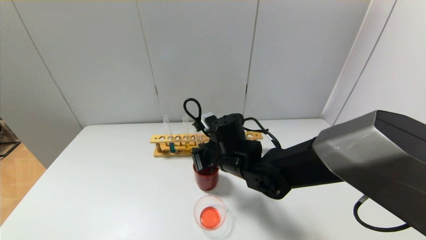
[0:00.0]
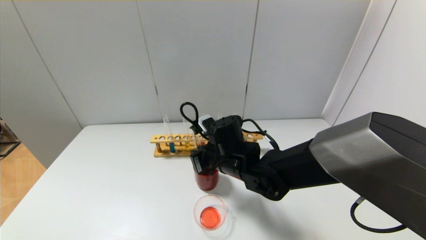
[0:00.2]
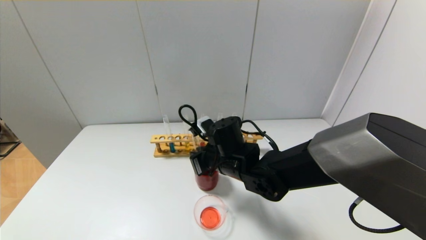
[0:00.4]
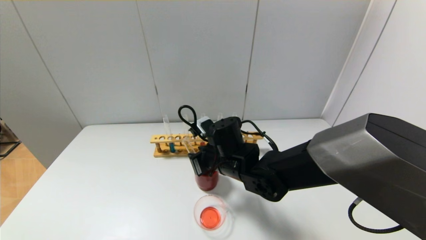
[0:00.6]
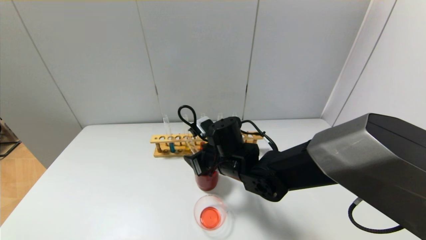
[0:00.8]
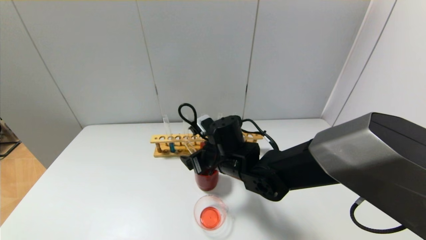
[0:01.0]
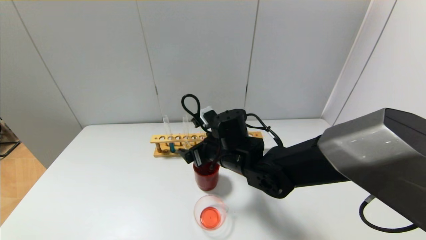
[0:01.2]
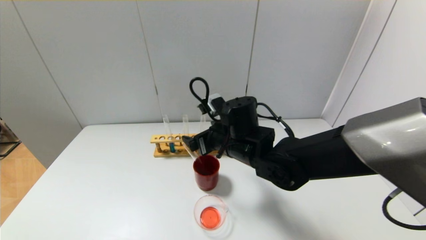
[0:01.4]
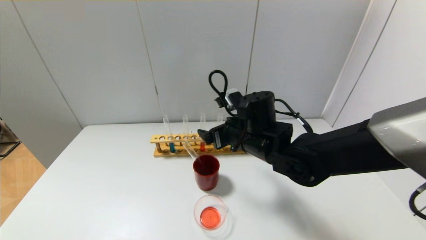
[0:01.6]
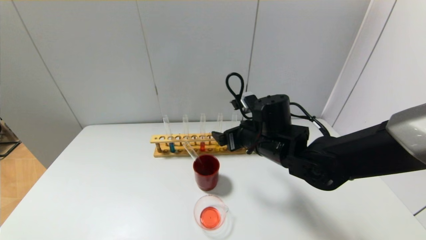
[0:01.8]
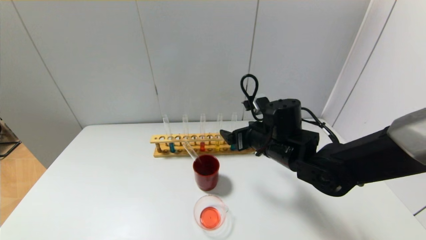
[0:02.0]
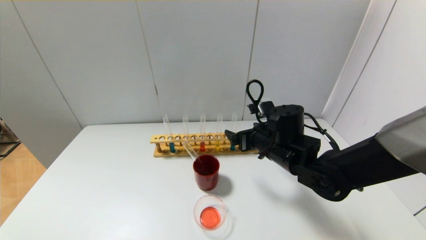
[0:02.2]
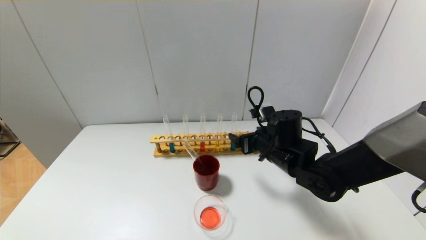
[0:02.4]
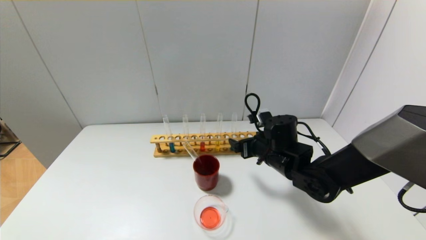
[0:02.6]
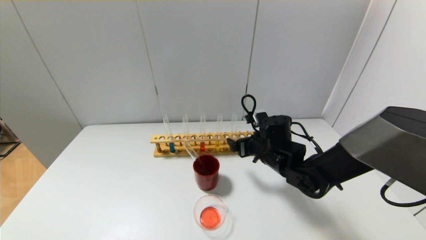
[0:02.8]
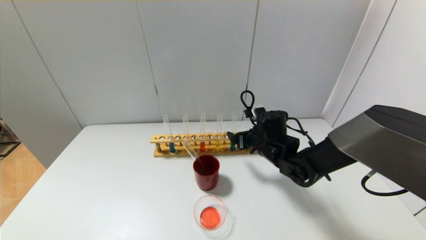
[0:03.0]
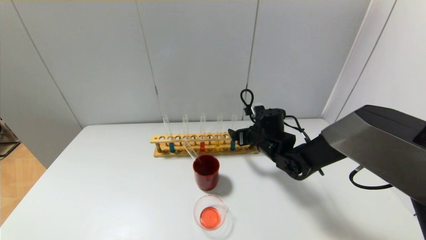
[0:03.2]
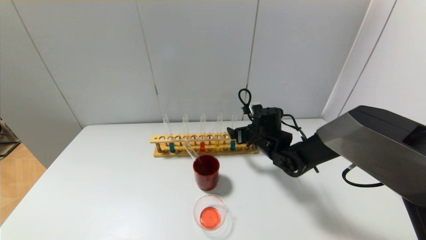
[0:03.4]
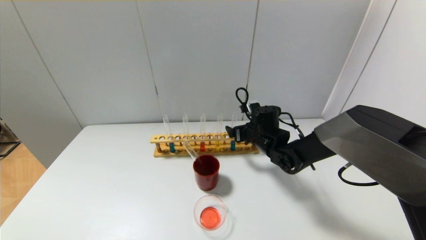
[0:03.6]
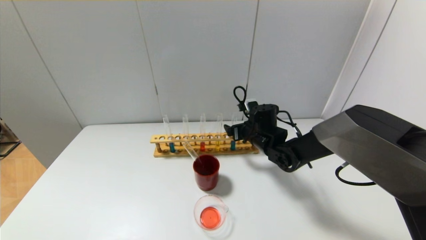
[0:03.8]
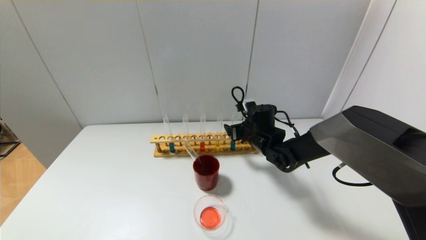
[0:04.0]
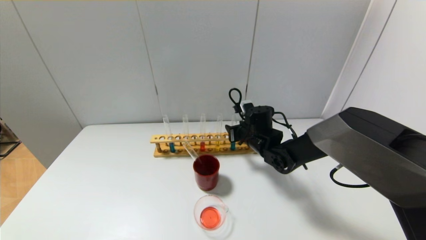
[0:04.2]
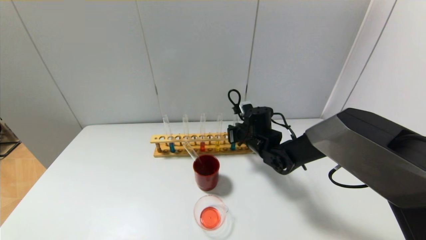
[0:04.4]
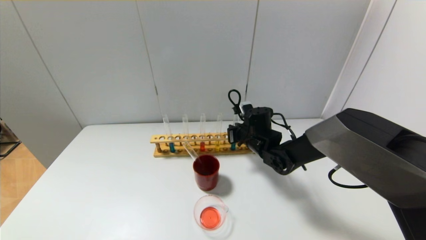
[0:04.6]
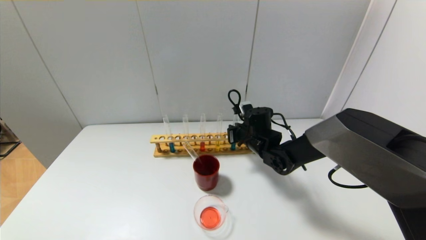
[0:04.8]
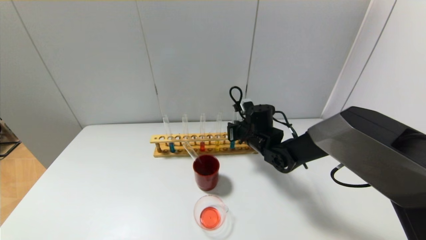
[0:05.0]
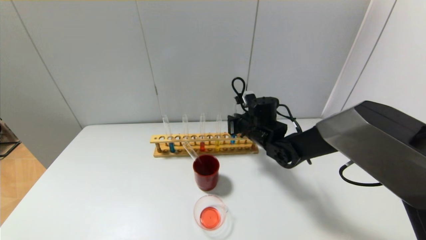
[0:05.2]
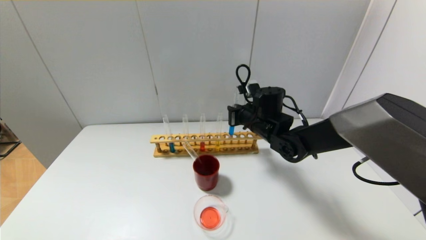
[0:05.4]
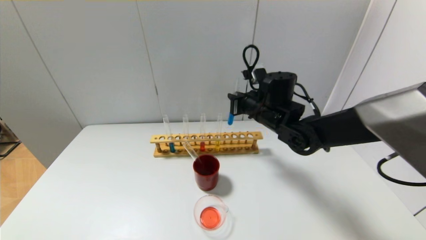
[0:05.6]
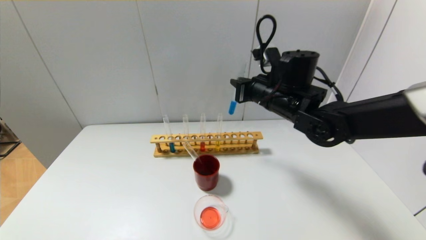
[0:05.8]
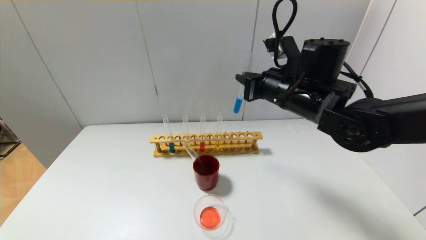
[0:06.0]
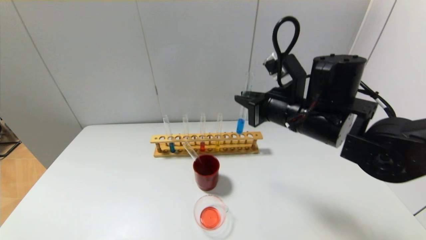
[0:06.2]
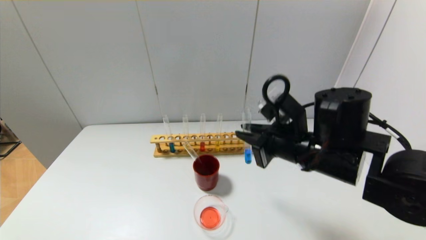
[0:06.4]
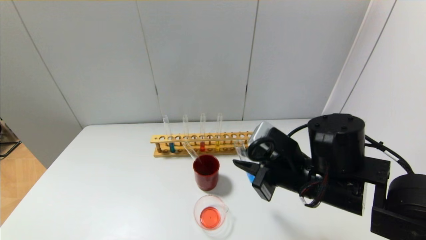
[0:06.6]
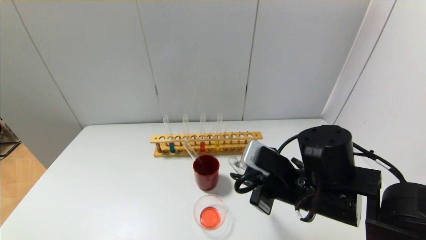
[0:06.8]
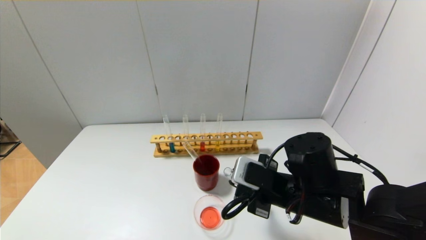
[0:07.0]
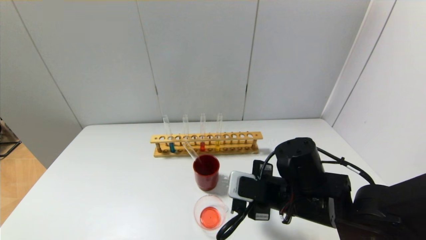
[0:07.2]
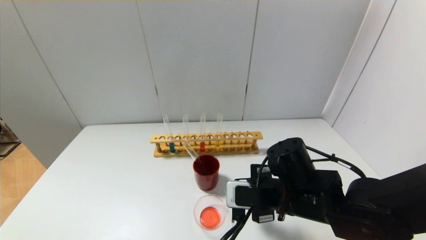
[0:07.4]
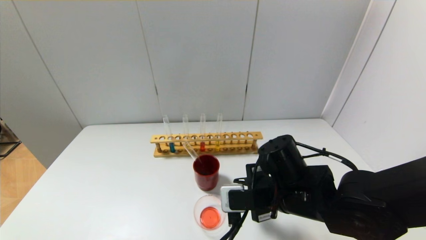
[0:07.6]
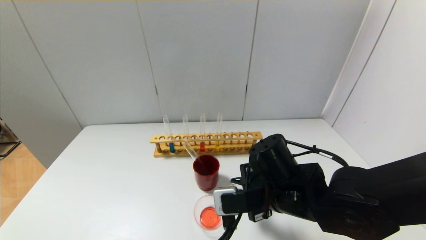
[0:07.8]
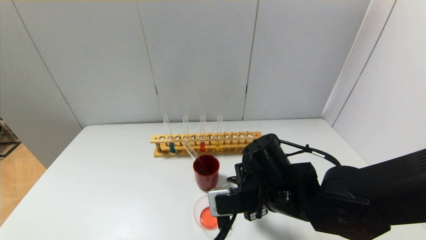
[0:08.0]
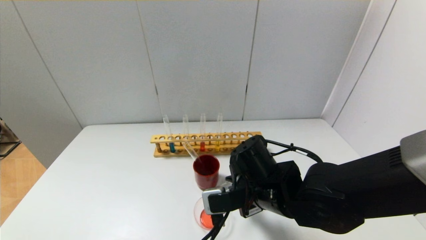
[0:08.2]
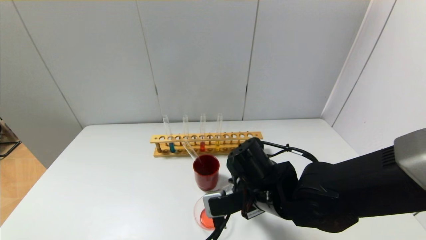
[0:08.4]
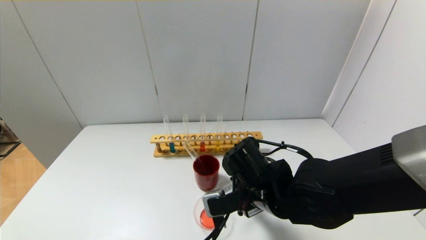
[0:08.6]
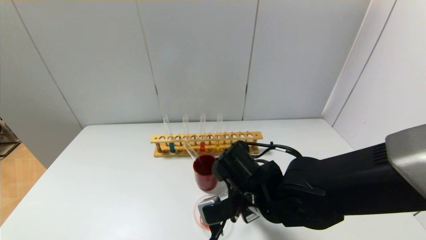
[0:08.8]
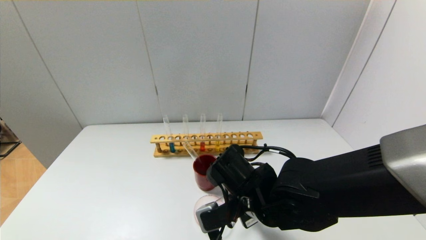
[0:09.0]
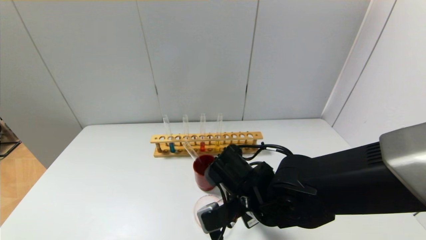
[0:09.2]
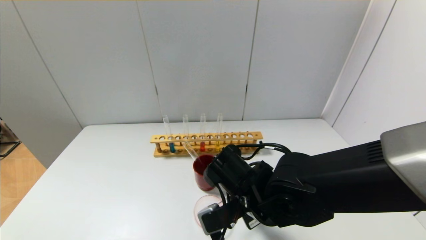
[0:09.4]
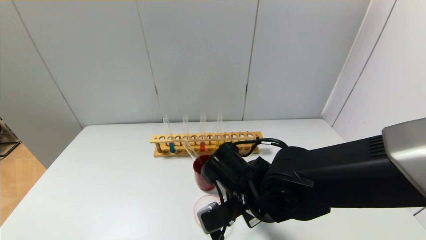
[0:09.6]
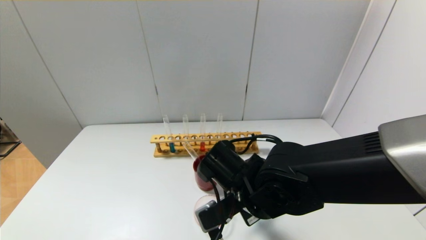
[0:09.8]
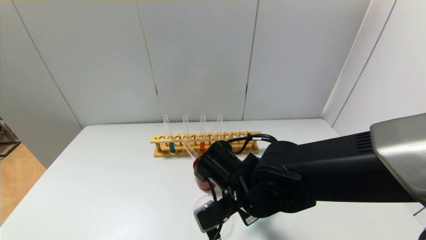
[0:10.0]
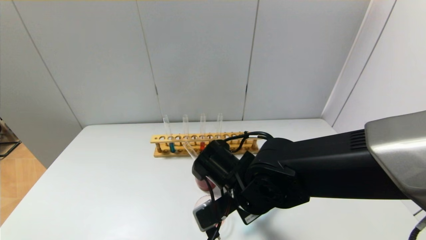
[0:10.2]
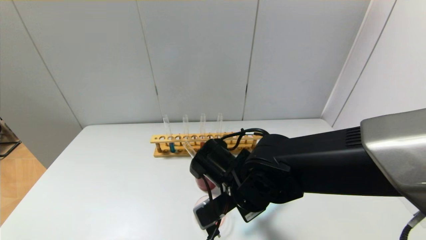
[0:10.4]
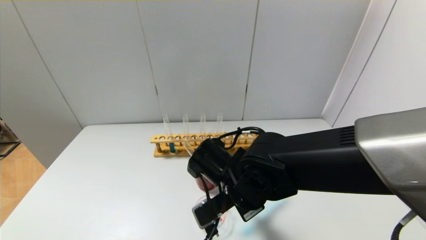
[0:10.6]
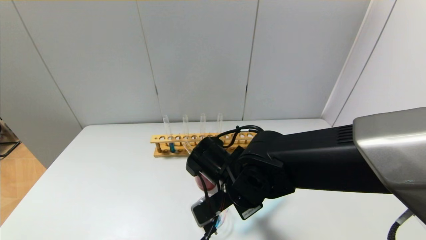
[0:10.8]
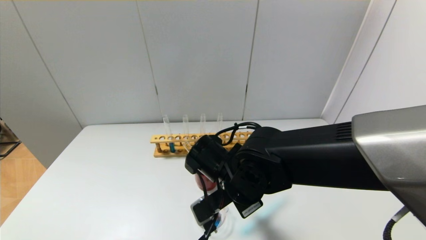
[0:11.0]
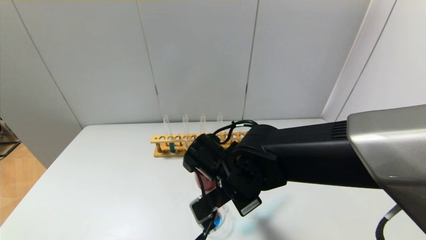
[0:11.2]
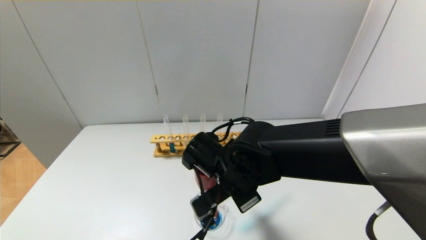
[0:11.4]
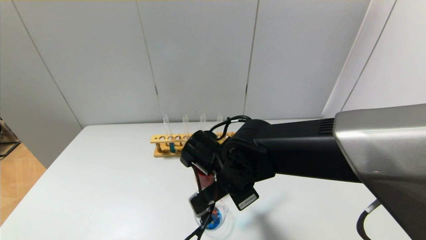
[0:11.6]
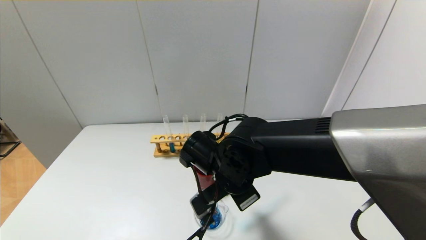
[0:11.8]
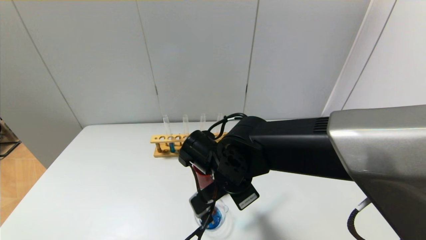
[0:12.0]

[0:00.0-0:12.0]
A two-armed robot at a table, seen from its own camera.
Step, 0:01.0 to 0:04.6: Grasp the blue reagent with the right gripper.
0:00.0 to 0:01.6: The right gripper changes place by roughly 5 cm, and opens.
0:01.6 to 0:03.0: The right gripper moves downward, to the right and forward, about 10 cm.
0:03.0 to 0:04.4: The right gripper closes.
0:04.4 to 0:06.0: The right gripper is displaced upward and backward by roughly 20 cm.
0:06.0 to 0:07.6: The right gripper shifts approximately 15 cm downward and backward.
0:07.6 to 0:09.0: The right gripper goes some 5 cm to the left.
0:09.0 to 0:12.0: The grippers move only a little.

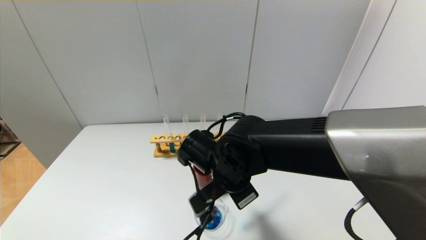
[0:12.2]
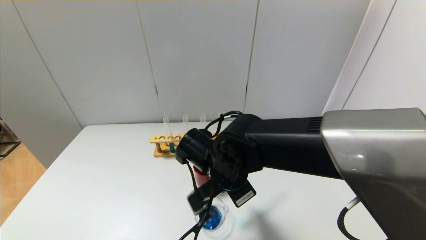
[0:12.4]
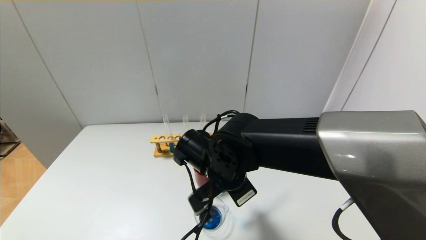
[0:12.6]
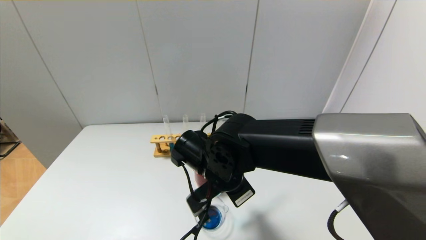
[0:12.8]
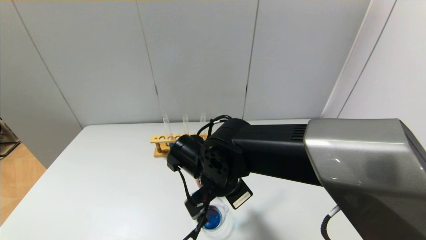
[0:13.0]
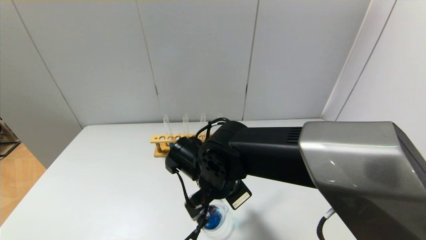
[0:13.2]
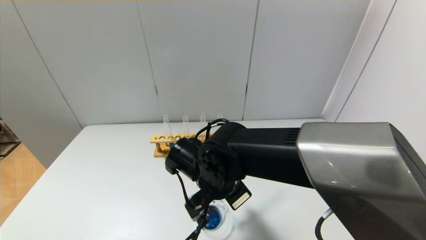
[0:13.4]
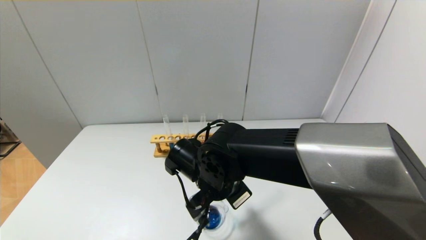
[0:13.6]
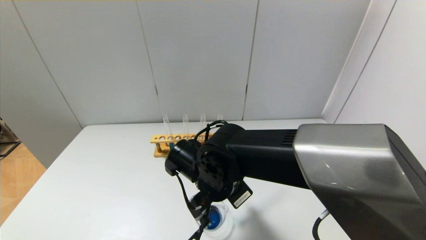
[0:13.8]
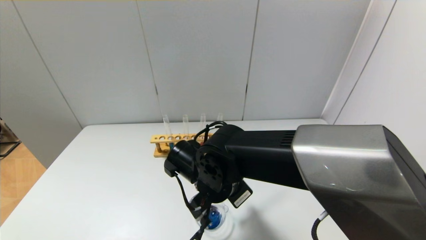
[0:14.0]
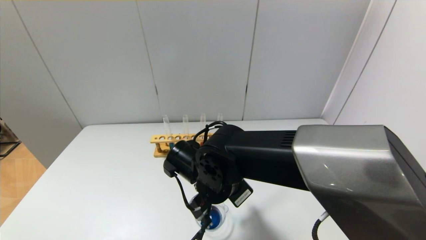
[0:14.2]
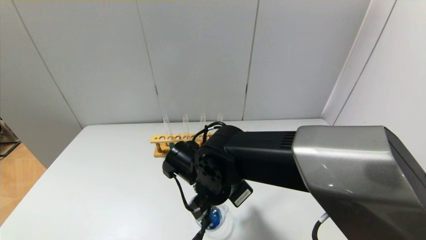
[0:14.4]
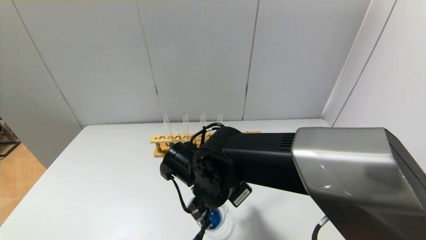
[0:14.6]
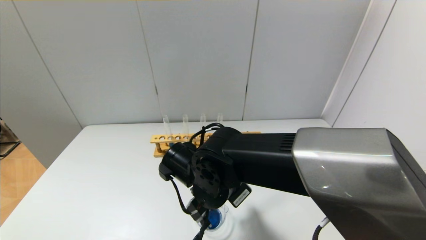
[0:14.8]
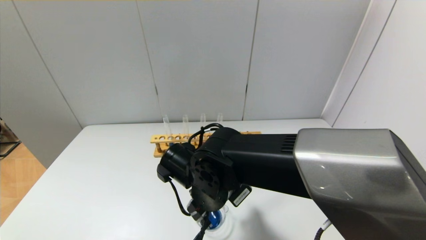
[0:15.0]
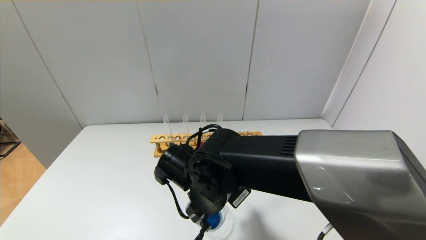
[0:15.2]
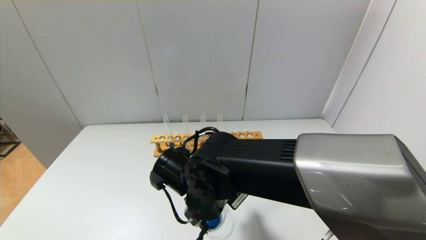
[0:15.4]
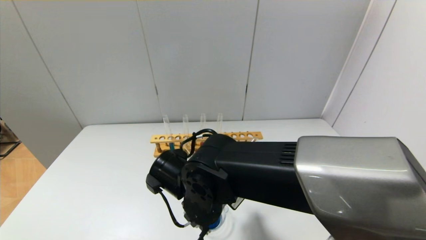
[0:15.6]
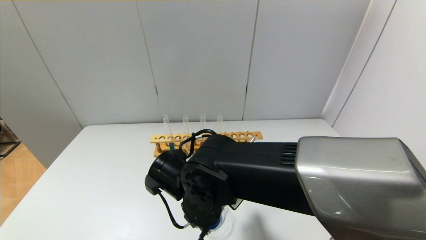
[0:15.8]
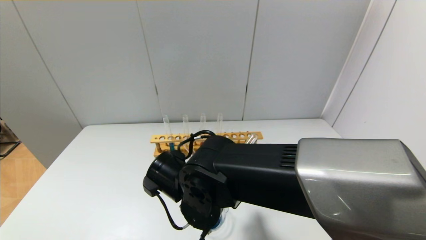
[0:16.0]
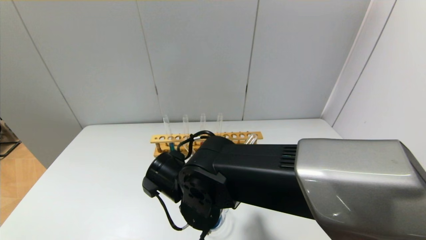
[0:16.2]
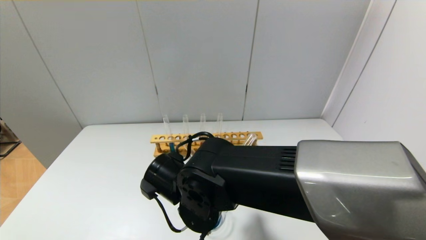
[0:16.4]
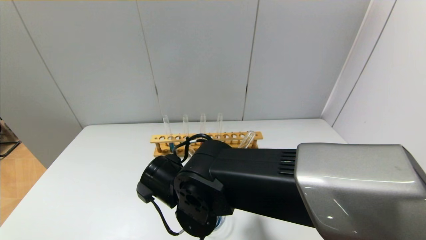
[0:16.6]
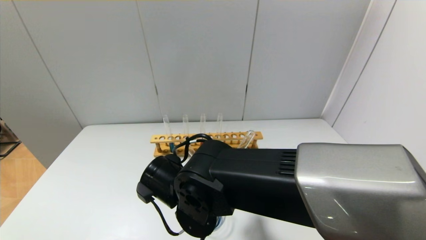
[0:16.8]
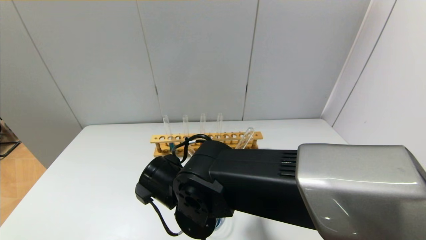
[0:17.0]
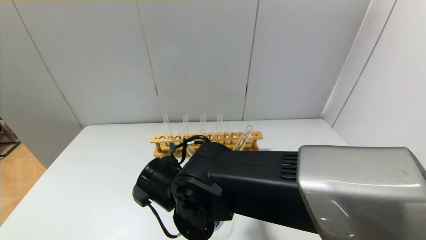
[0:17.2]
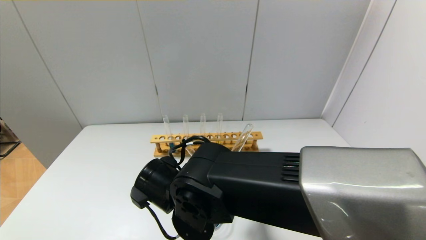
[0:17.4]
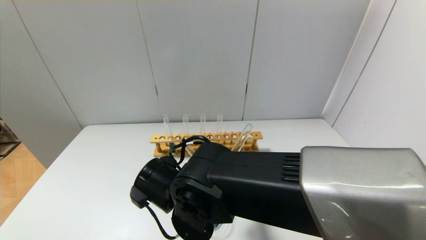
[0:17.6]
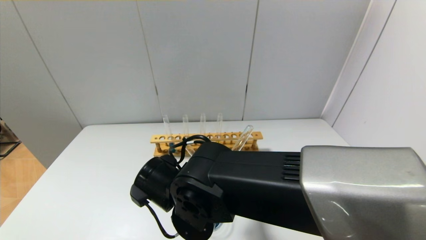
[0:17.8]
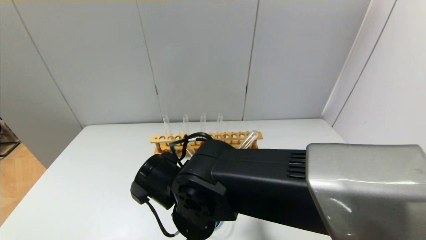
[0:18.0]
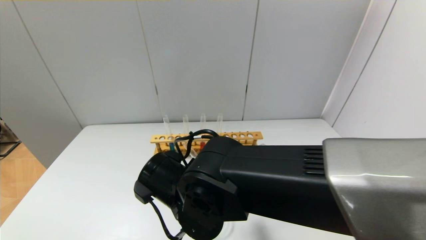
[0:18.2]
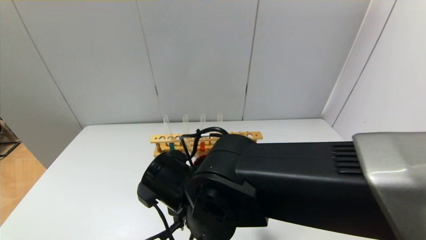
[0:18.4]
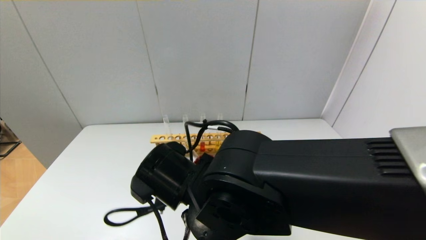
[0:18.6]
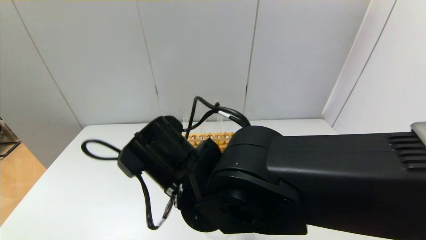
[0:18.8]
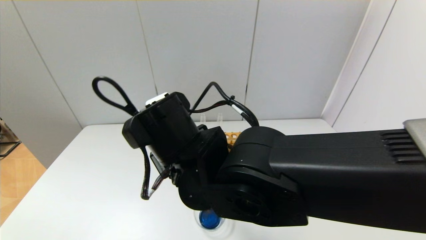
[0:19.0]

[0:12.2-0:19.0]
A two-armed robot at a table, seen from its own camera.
Step, 0:12.2 to 0:18.4: Pour the blue reagent into the graduated cylinder with the right gripper.
0:12.2 to 0:15.0: The grippers stay close to where they were, moving slightly.
0:15.0 to 0:17.6: The grippers stay close to where they were, moving slightly.
0:17.6 to 0:19.0: The right gripper travels upward by approximately 5 cm.